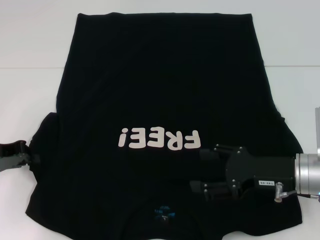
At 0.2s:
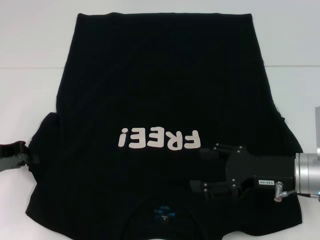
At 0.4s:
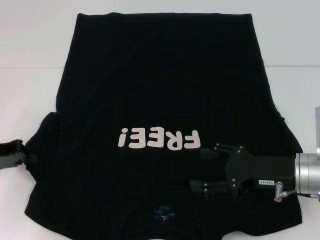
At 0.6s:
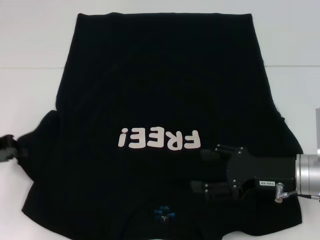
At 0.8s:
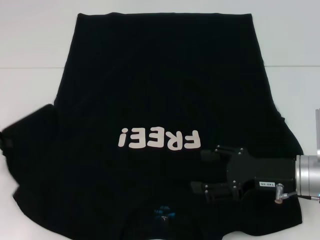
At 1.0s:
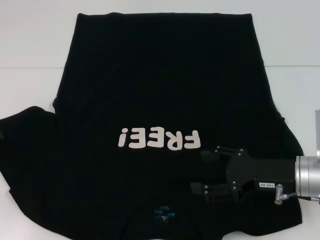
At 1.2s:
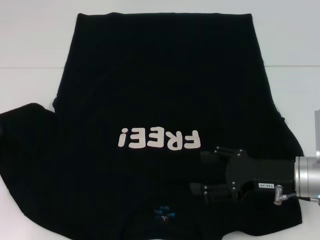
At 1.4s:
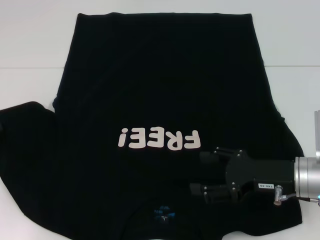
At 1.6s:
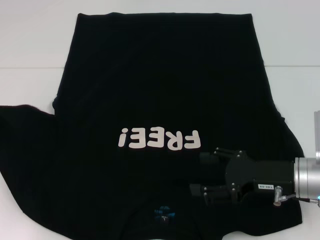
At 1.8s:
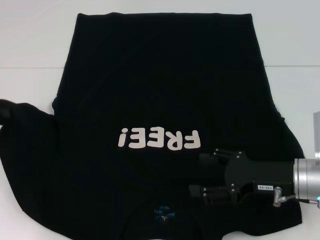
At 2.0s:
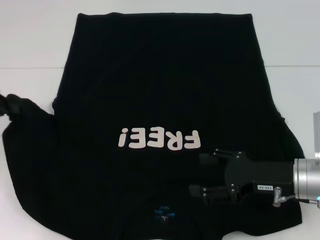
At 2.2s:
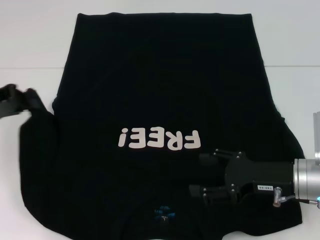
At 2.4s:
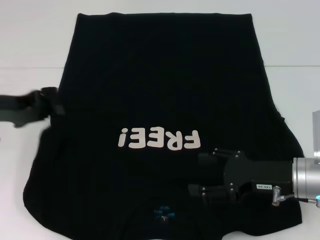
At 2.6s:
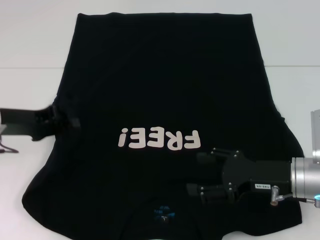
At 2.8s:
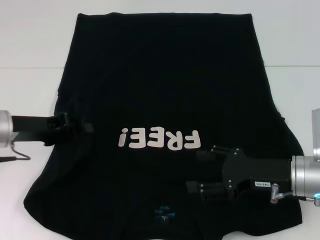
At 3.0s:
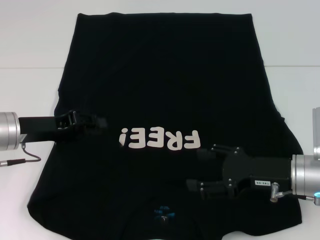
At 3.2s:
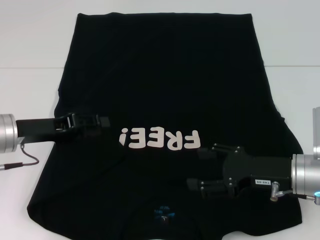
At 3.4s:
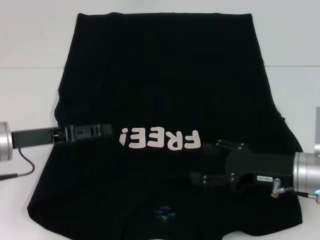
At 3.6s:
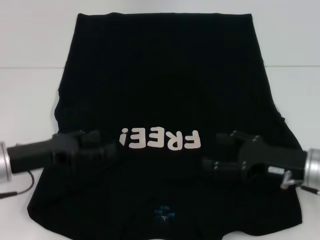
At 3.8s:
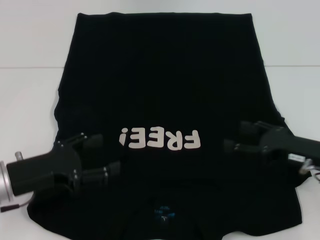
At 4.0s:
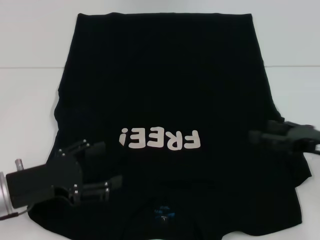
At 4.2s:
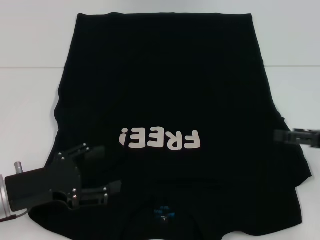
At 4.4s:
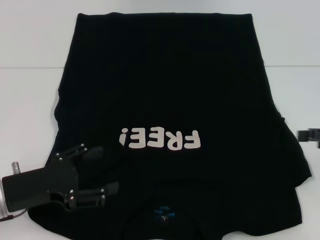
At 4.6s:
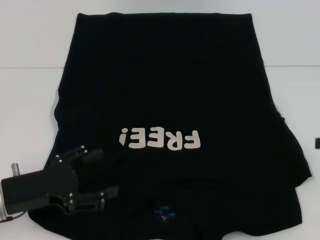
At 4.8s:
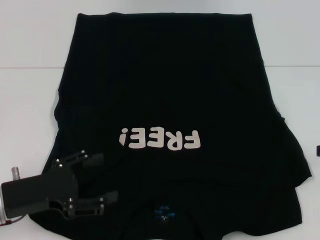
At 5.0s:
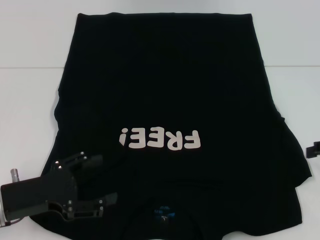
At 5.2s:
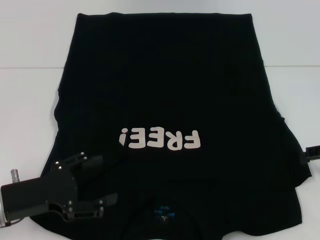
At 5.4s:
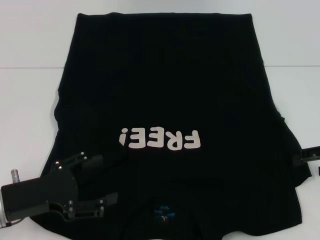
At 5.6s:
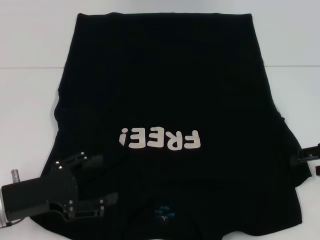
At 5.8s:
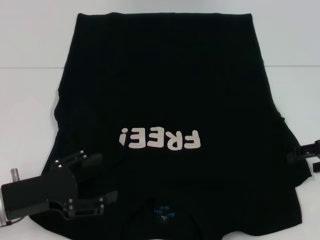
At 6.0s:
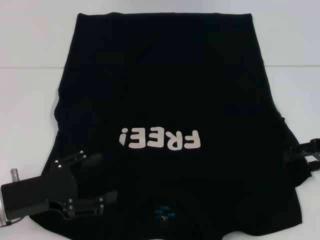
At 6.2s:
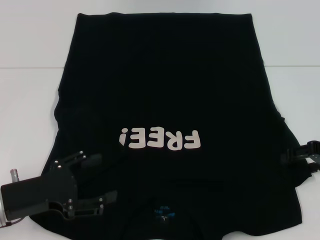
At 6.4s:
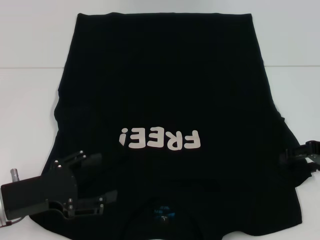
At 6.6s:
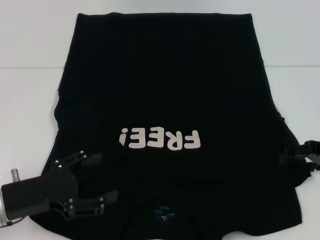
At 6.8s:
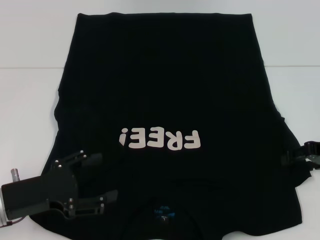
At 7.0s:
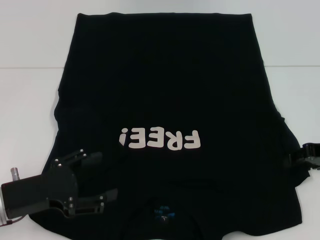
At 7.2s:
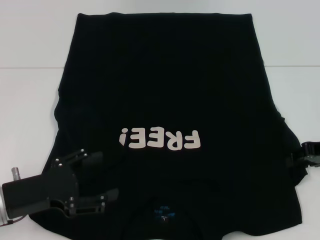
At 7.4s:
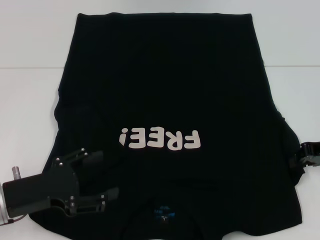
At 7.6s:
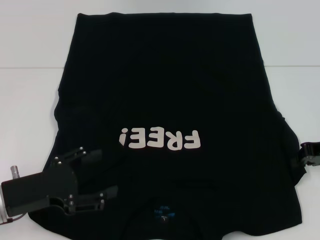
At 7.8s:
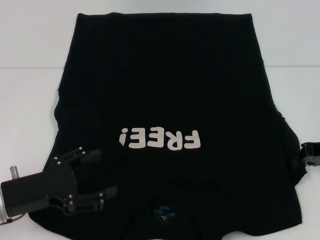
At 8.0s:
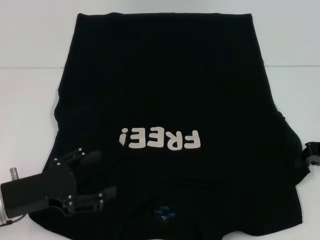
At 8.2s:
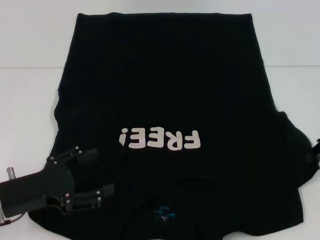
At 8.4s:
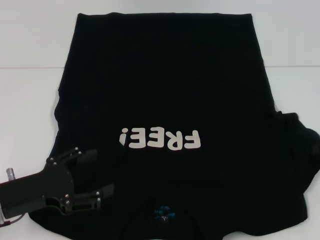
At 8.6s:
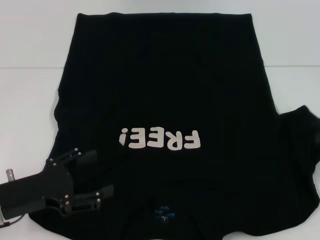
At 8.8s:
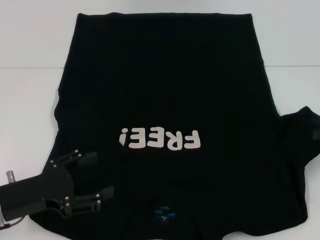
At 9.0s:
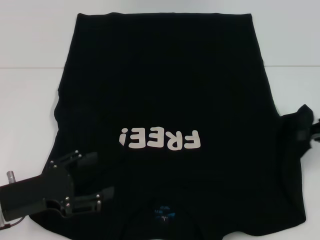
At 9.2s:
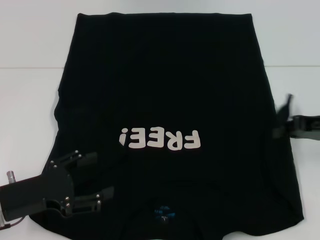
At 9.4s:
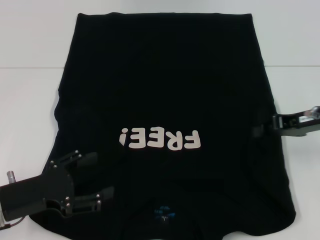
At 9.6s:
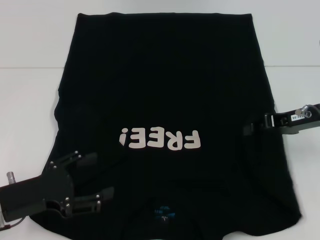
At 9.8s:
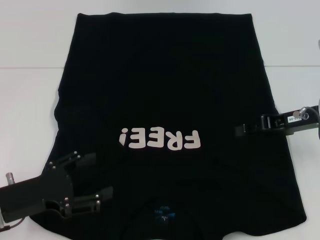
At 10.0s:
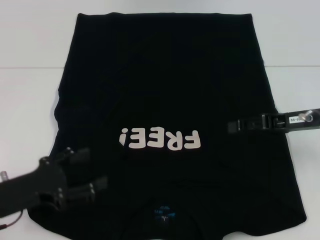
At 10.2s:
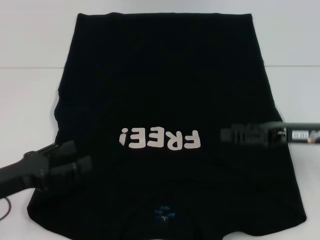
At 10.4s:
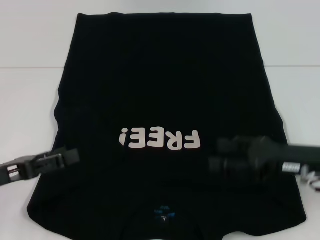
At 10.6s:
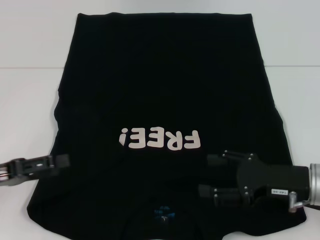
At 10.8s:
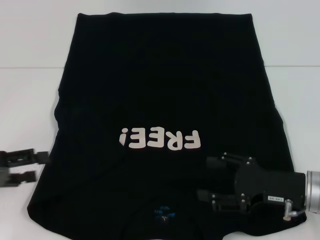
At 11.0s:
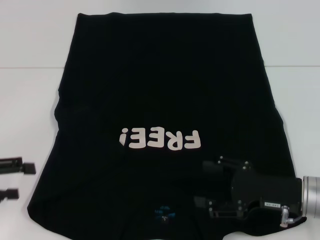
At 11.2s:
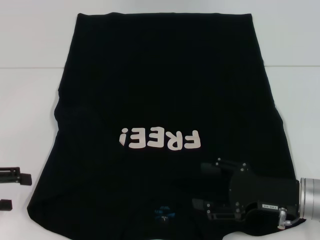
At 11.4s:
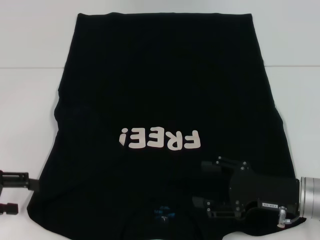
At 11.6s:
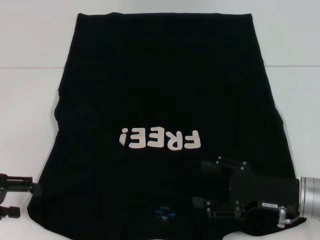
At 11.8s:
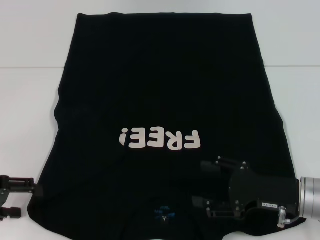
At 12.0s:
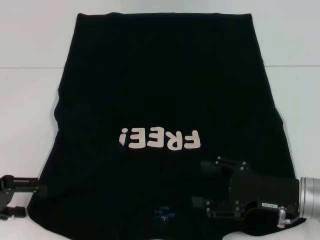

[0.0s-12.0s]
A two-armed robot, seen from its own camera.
Step, 0.0s to 2.8s: Fold the bottom left sleeve with your left hand.
Step, 3.0s to 9.8s: Fold the bottom right sleeve with your right hand.
0.0s to 1.6s: The left gripper goes some 5 cm upward.
1.6s to 3.0s: The left gripper is displaced to the right by some 10 cm.
3.0s to 4.4s: The left gripper goes some 10 cm backward, and opens its fingers; the right gripper travels to the right and upward by some 15 cm.
4.4s to 6.0s: The right gripper changes place by some 5 cm.
6.0s to 7.6s: The right gripper closes its fingers.
7.6s to 9.0s: There are only small adjustments of the grippers.
9.0s to 10.4s: The left gripper moves about 5 cm; the right gripper heads to the left, covering some 10 cm, and opens its fingers.
10.4s to 12.0s: The right gripper shifts by about 5 cm.

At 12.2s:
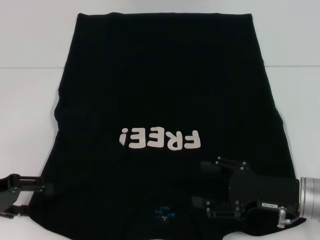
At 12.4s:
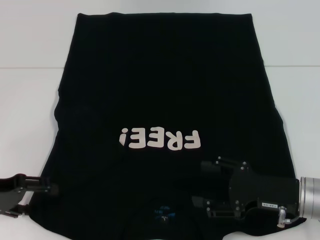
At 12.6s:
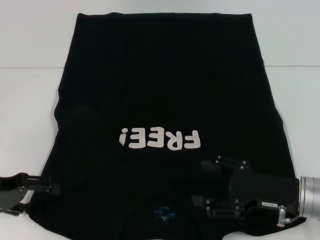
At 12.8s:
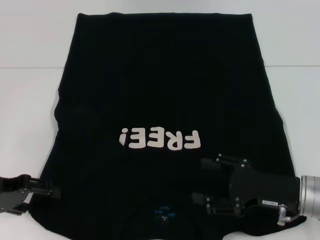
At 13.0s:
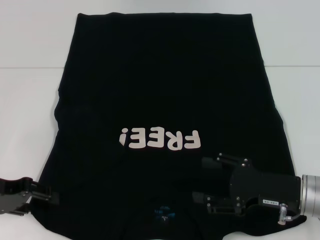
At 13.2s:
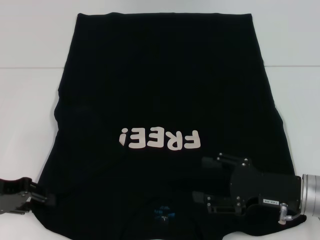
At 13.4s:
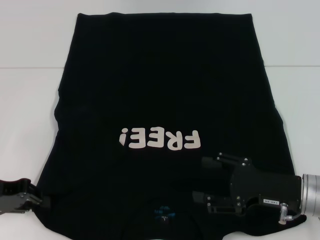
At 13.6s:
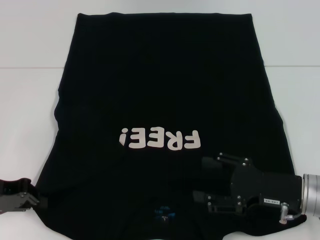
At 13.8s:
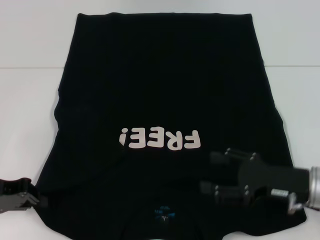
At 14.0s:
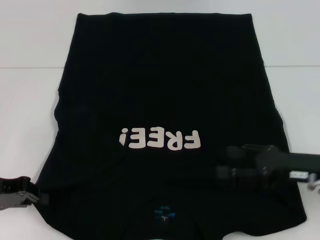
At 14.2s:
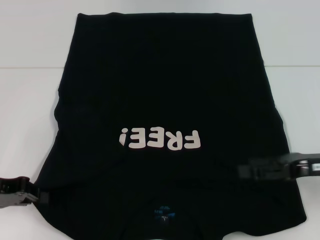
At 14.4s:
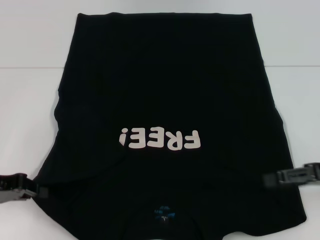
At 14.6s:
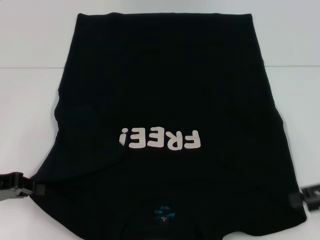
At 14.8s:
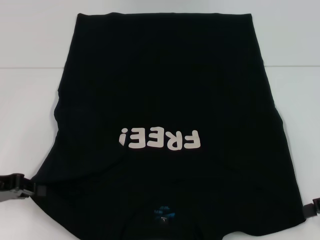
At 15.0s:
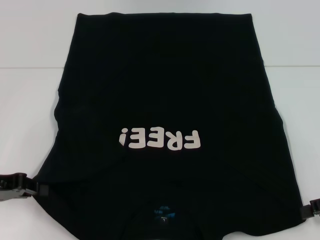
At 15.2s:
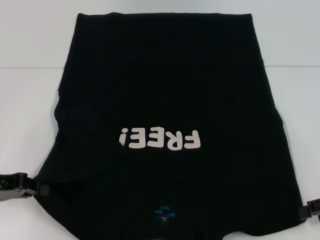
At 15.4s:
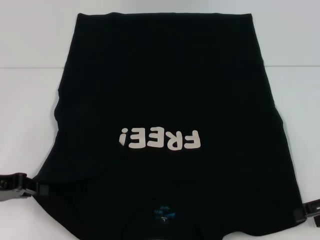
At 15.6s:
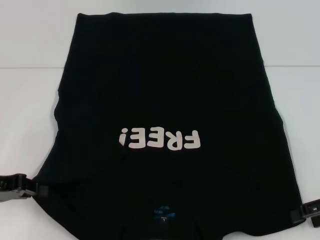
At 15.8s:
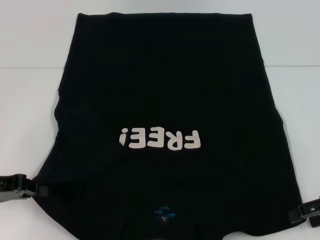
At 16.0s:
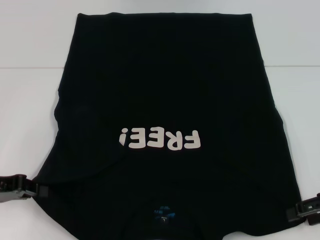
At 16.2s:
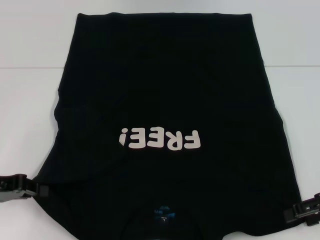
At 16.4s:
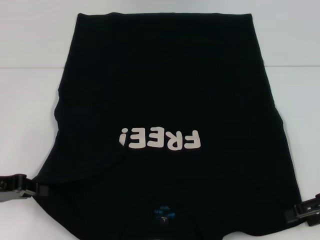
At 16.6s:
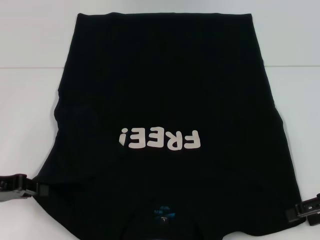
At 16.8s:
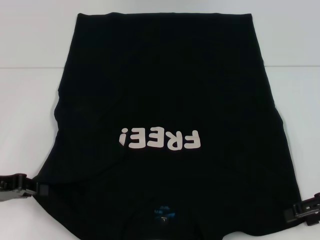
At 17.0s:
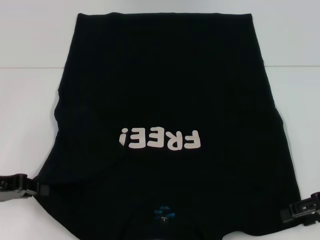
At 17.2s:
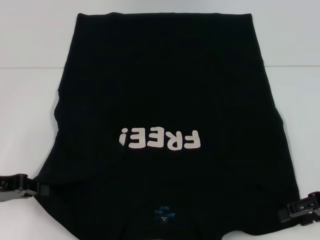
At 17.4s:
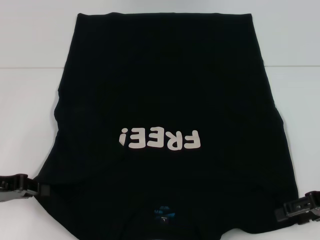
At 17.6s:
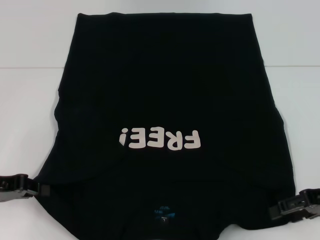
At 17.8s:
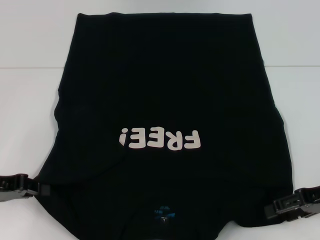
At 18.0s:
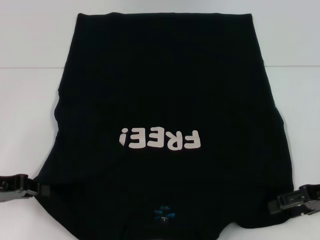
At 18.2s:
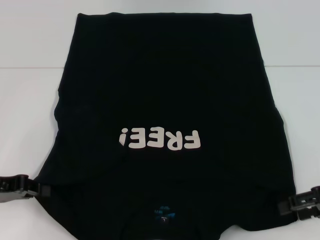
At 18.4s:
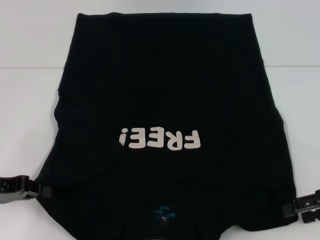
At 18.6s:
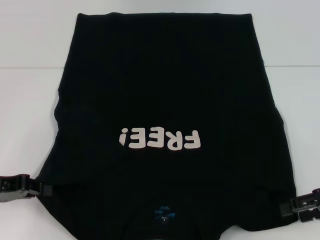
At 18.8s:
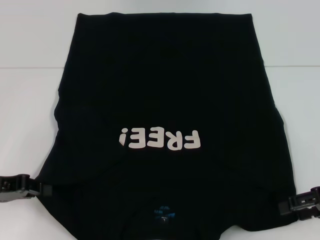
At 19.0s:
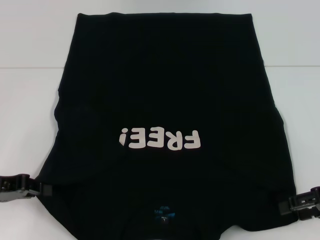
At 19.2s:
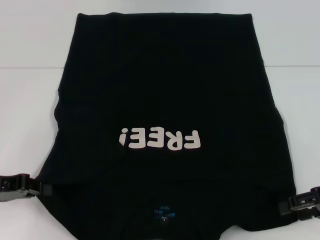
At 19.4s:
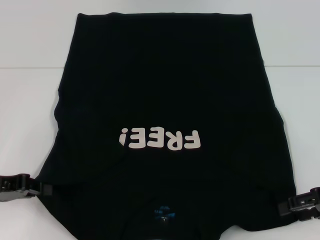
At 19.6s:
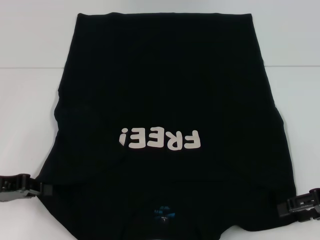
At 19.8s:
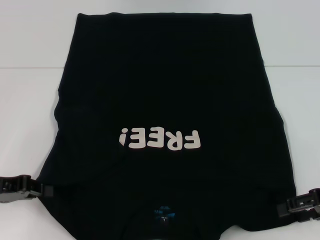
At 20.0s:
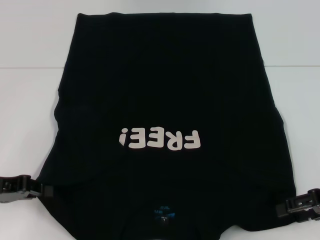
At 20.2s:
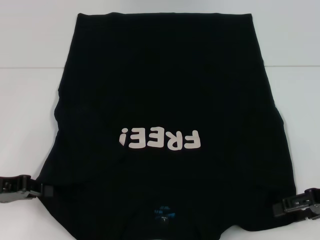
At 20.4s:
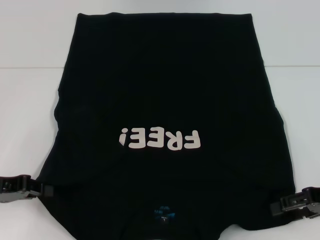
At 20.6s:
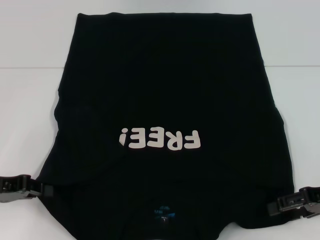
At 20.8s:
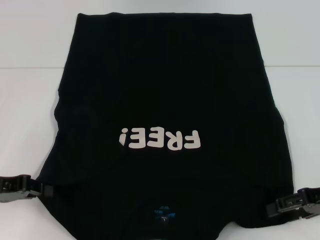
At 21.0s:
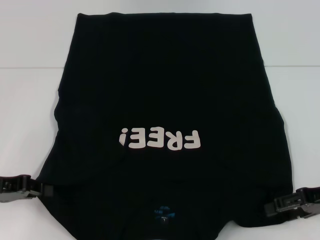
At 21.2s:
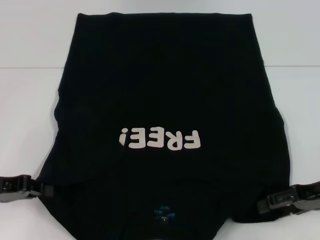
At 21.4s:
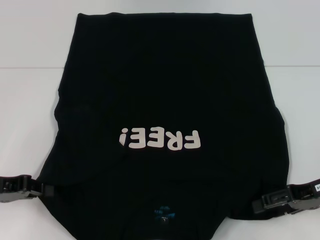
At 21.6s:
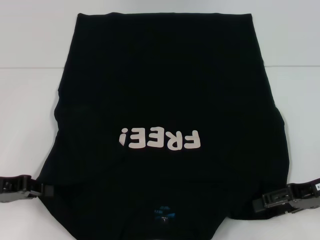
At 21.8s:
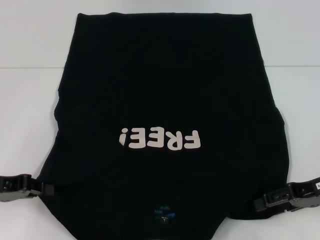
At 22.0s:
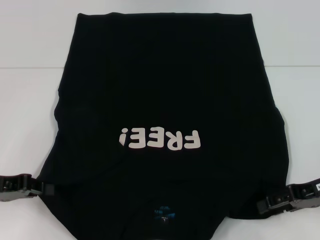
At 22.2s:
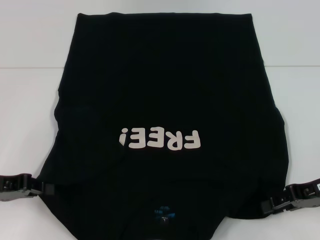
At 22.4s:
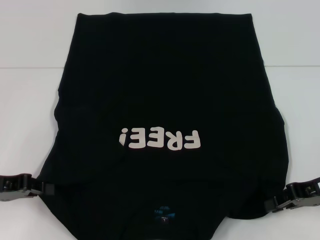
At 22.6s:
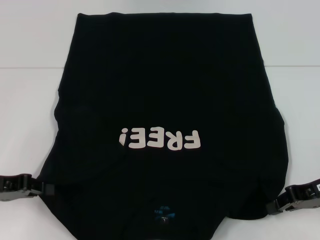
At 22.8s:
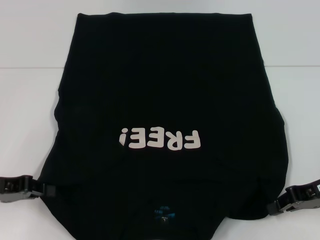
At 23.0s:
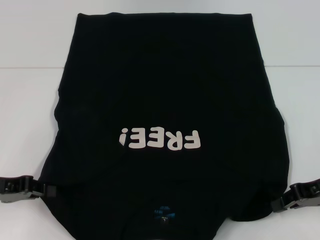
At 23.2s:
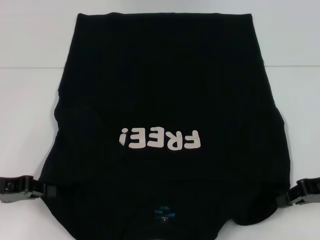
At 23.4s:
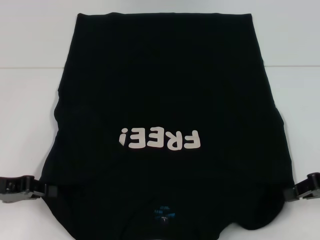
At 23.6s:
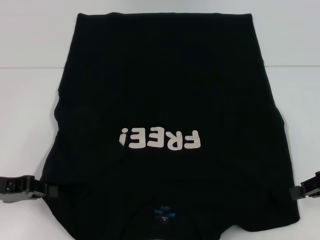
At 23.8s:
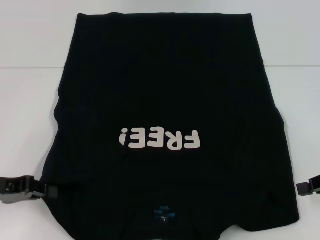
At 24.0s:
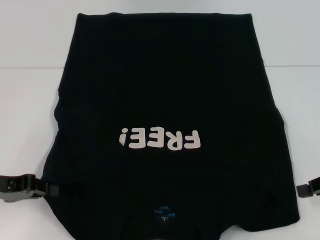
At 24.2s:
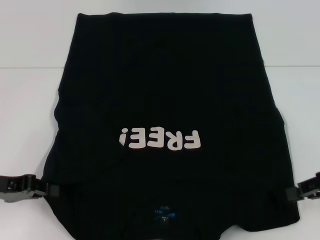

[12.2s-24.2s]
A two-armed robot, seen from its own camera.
12.2s to 13.8s: The left gripper closes.
13.8s to 15.2s: The right gripper is displaced to the right and upward by about 10 cm.
16.6s to 18.2s: The grippers move only a little.
18.2s to 19.8s: Both grippers stay about where they are.
19.8s to 21.2s: The grippers stay close to where they were, moving slightly.
21.2s to 22.6s: The right gripper closes.
22.6s to 24.2s: The grippers make only small movements.
